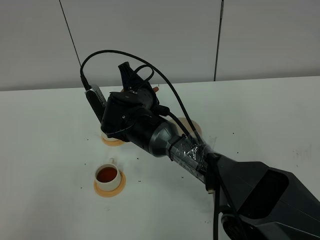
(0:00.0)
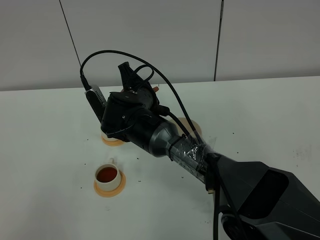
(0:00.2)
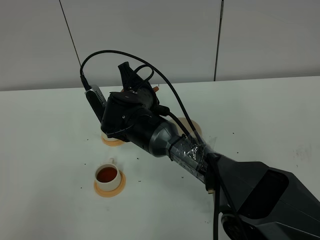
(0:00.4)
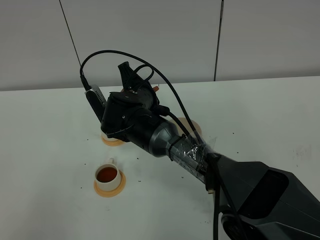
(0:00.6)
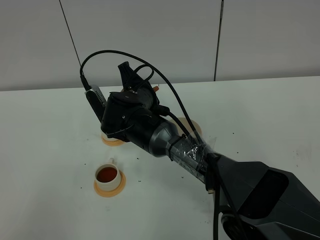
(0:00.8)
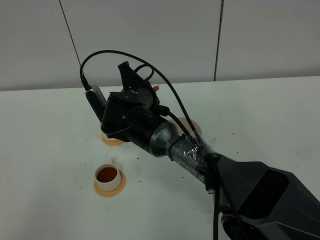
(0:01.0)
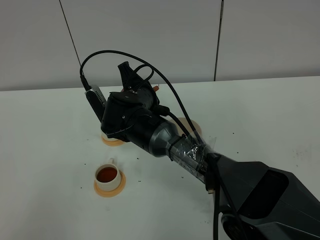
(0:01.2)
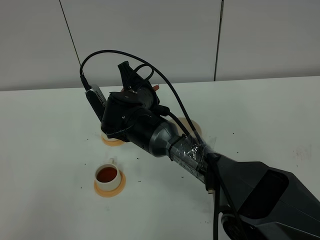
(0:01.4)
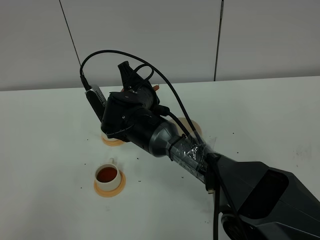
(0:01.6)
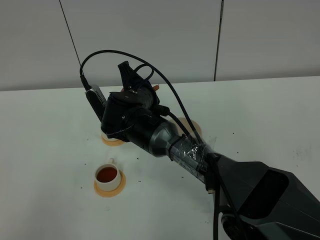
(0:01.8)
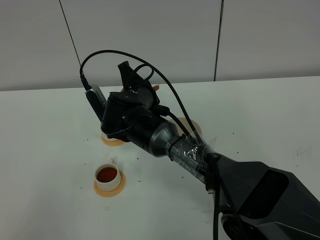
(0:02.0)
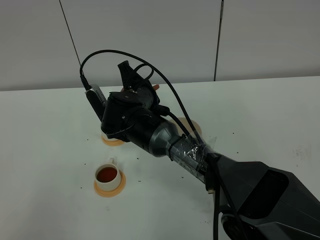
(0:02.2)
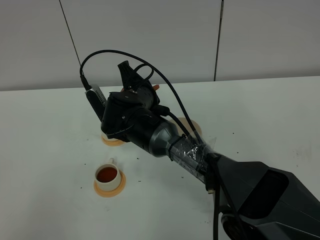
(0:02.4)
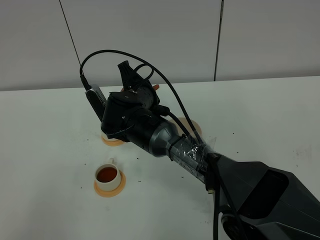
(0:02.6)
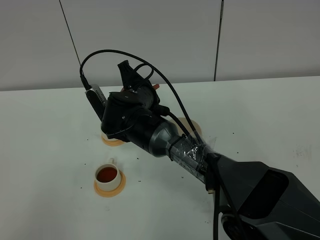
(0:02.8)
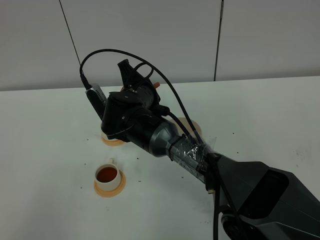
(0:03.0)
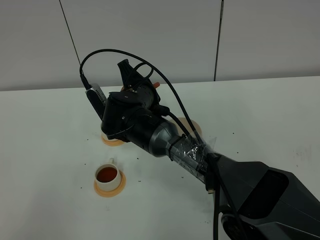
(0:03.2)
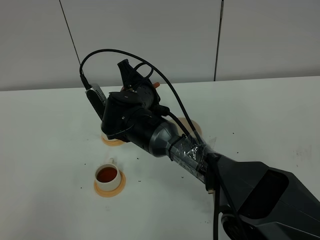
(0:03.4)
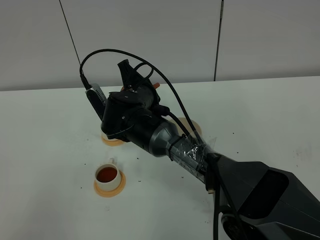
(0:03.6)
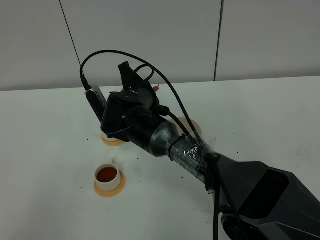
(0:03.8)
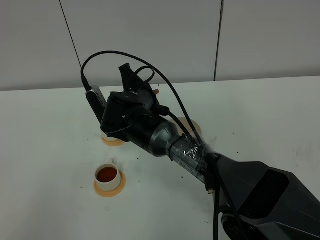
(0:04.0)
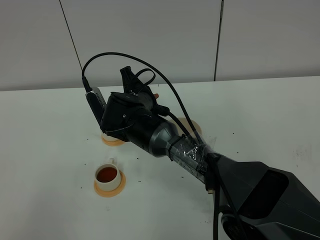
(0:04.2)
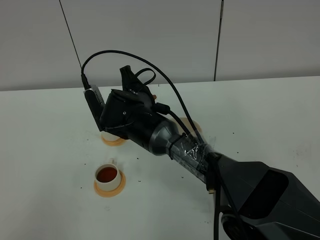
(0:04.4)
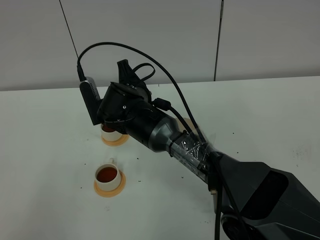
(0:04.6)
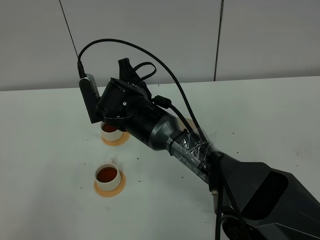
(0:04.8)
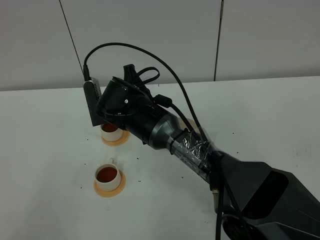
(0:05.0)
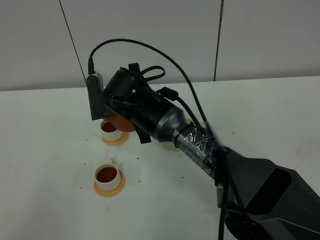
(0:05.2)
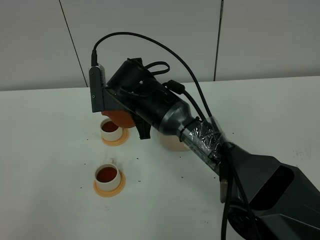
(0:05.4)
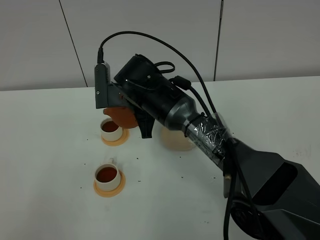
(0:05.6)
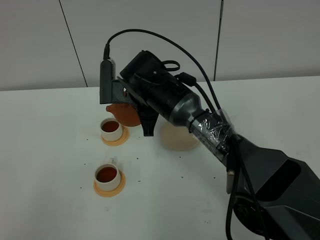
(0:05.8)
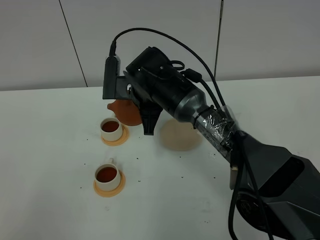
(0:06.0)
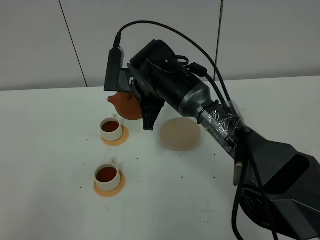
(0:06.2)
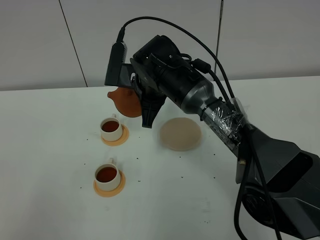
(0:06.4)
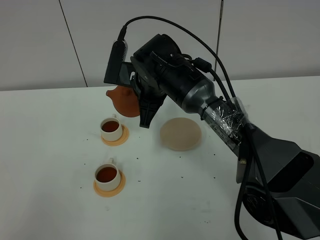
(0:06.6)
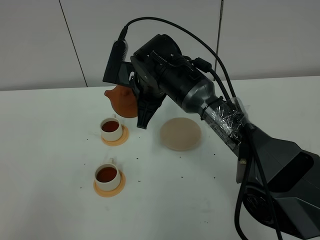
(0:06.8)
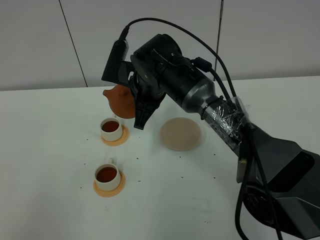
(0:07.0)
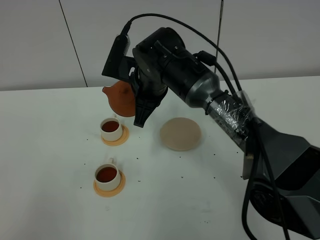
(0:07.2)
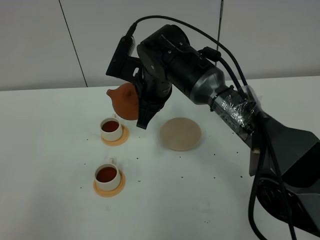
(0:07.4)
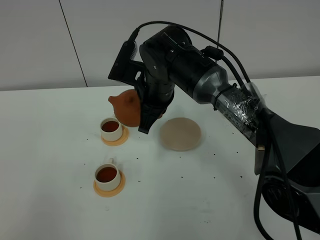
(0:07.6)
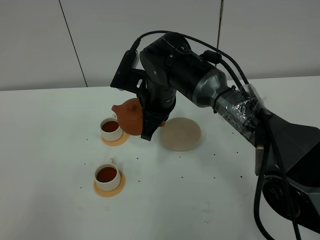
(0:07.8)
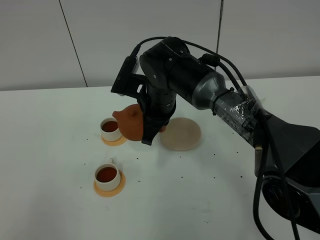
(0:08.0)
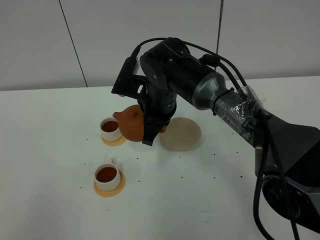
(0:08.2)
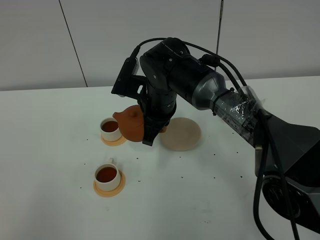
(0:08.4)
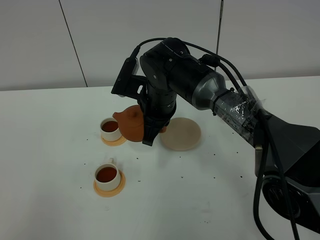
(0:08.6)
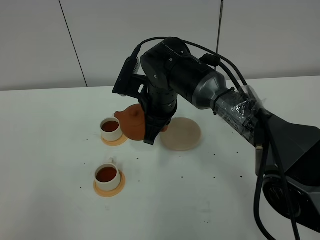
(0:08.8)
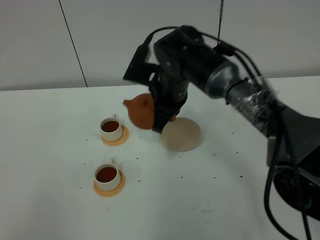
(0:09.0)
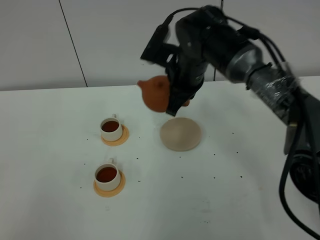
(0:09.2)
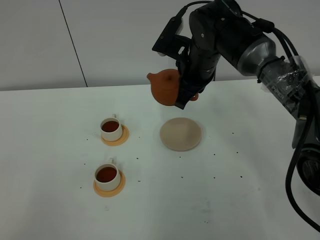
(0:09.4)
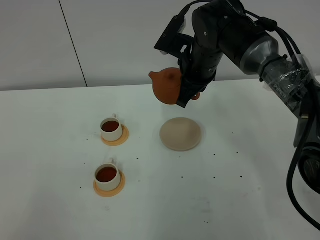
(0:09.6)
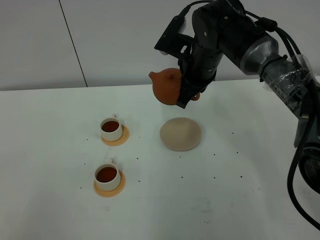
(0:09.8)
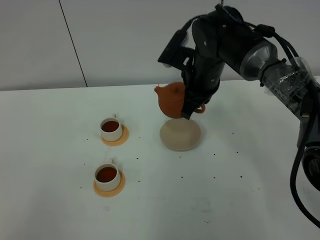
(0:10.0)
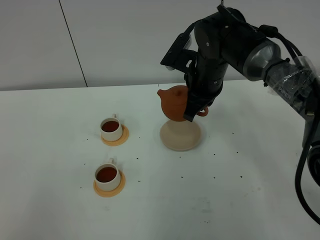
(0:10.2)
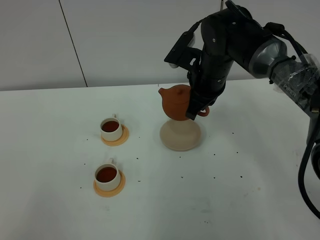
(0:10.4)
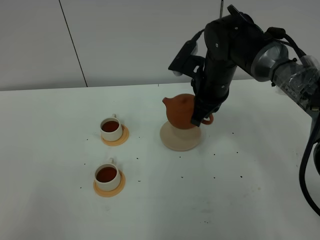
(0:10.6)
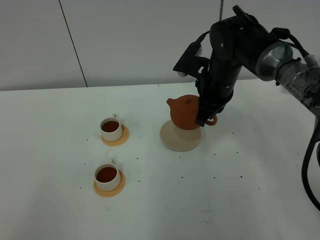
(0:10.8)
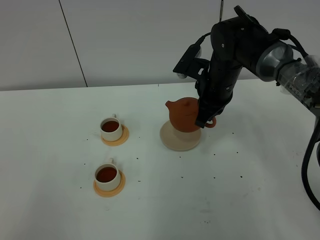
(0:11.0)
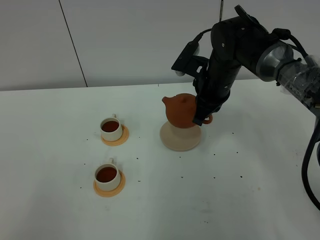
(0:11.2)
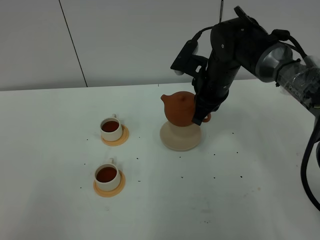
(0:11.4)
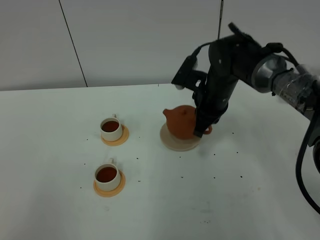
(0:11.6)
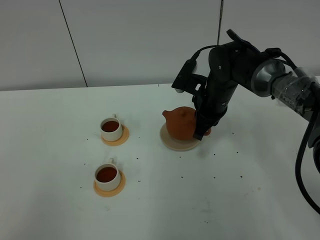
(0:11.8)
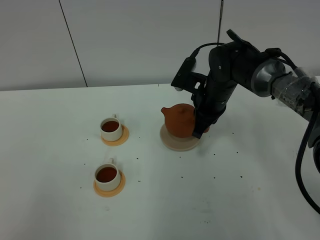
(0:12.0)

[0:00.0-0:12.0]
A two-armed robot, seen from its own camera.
Task of the whole recording: grasp the brown teapot and pour the tea into the two white teacups one by one, put the brown teapot back in its original place.
Step, 0:00.0 to 0:07.6: Pour tea into the teacup with the right gripper.
0:00.0 to 0:03.0: Neither gripper changes place.
0:03.0 to 0:04.4: There are only small adjustments of the grippers.
0:04.4 to 0:06.0: The right gripper changes place by approximately 5 cm.
0:07.6 to 0:09.0: The grippers stay close to where they were, moving slightly.
0:09.0 to 0:10.4: The right gripper shifts approximately 5 cm to the right.
0:10.4 to 0:12.0: The right gripper heads downward, covering approximately 5 cm.

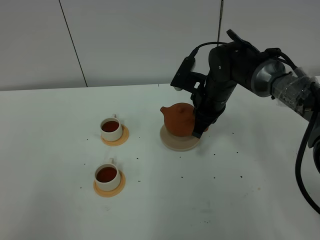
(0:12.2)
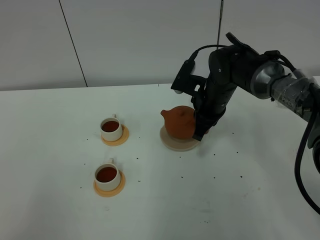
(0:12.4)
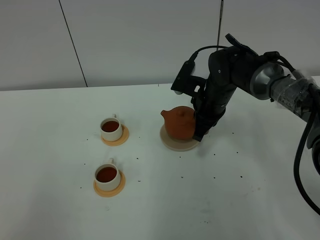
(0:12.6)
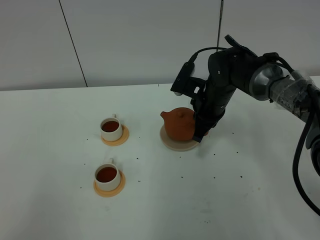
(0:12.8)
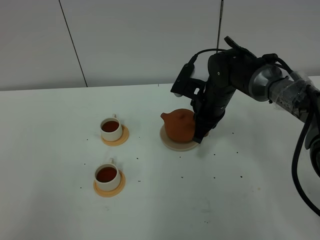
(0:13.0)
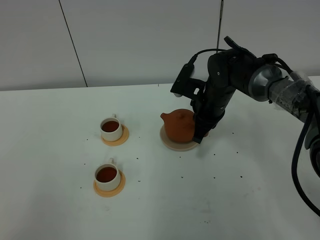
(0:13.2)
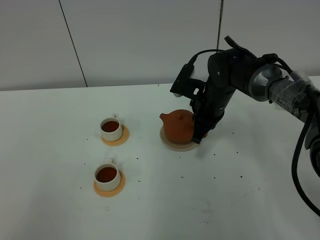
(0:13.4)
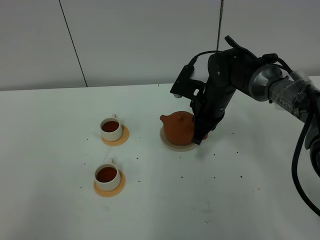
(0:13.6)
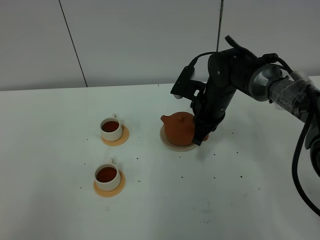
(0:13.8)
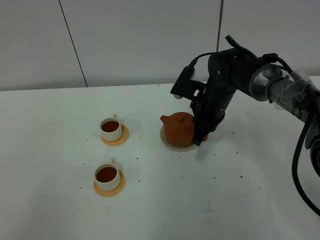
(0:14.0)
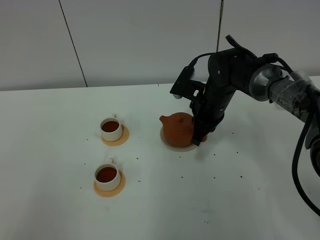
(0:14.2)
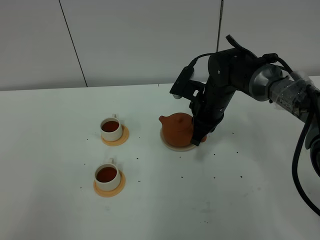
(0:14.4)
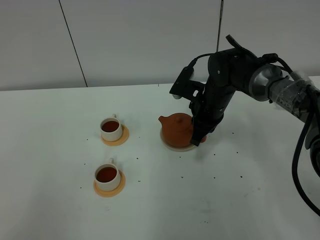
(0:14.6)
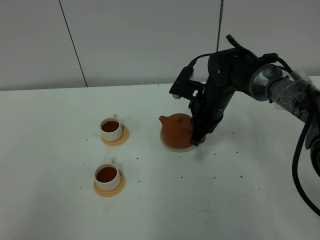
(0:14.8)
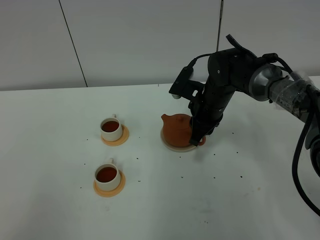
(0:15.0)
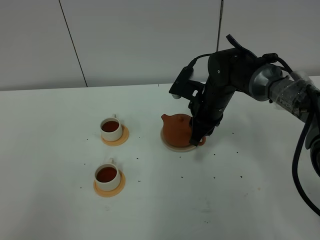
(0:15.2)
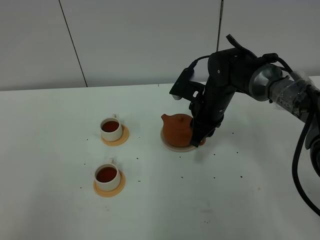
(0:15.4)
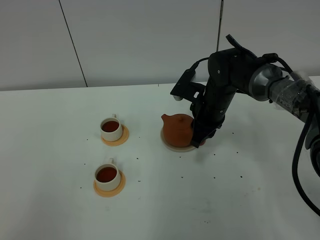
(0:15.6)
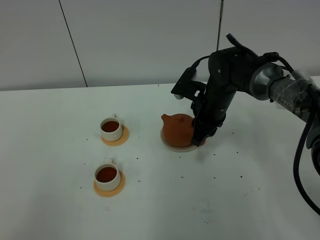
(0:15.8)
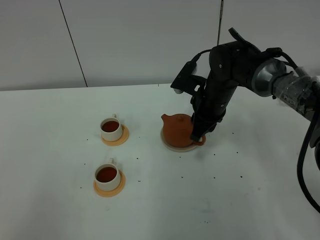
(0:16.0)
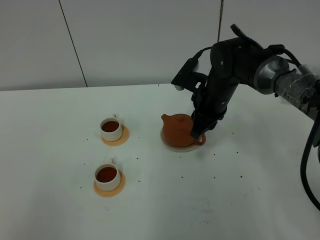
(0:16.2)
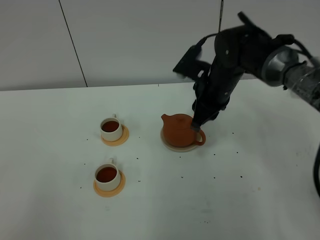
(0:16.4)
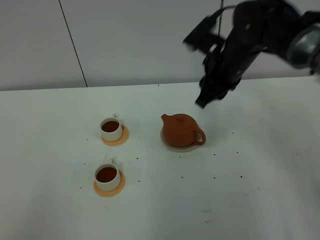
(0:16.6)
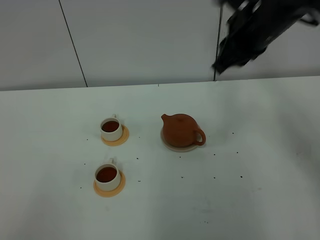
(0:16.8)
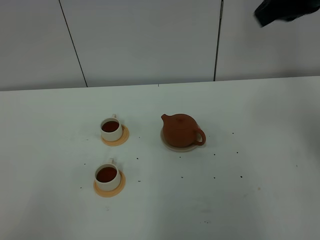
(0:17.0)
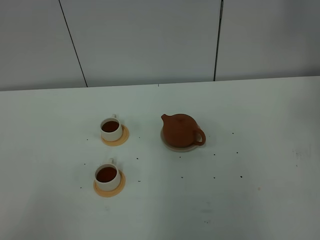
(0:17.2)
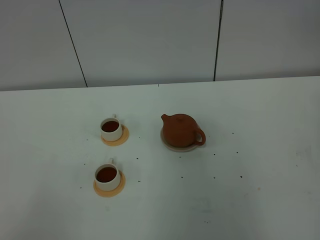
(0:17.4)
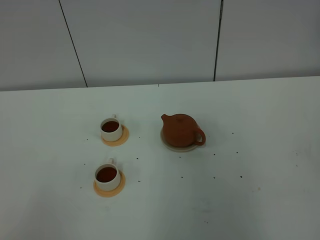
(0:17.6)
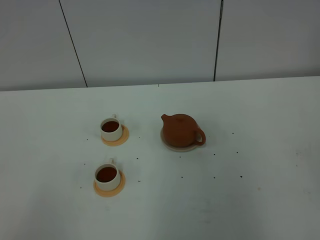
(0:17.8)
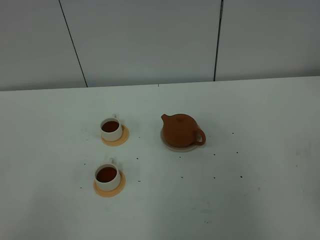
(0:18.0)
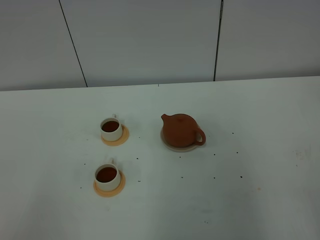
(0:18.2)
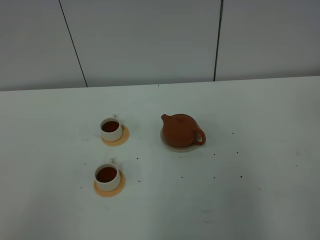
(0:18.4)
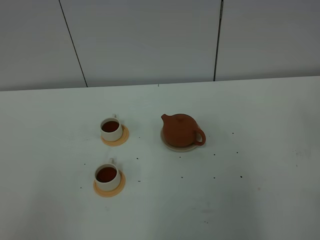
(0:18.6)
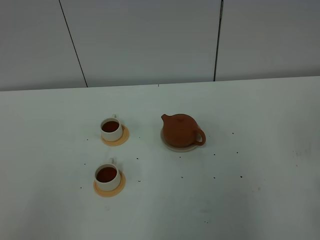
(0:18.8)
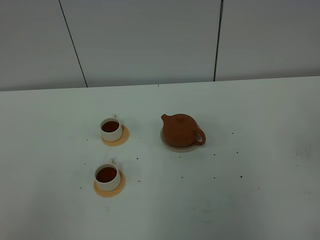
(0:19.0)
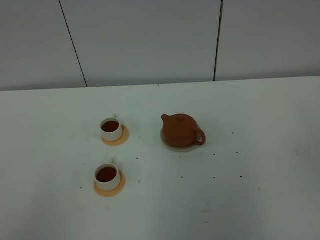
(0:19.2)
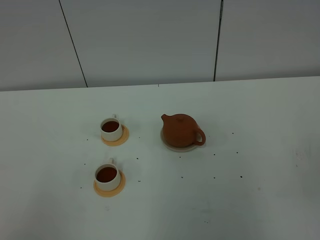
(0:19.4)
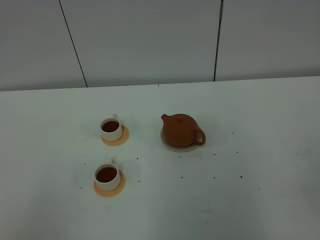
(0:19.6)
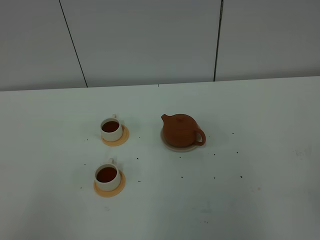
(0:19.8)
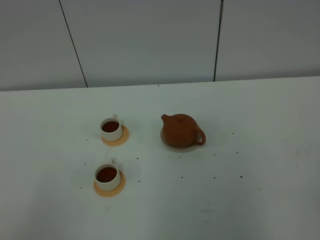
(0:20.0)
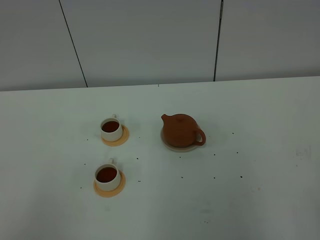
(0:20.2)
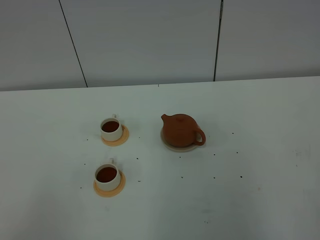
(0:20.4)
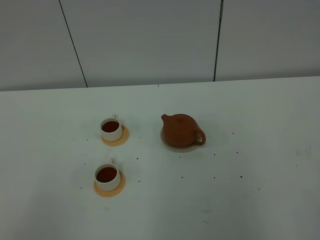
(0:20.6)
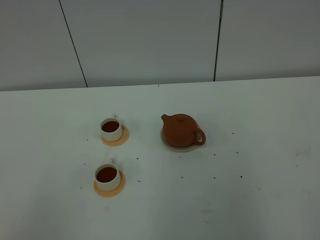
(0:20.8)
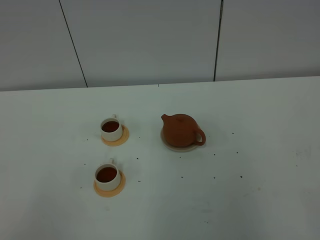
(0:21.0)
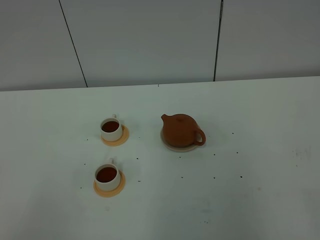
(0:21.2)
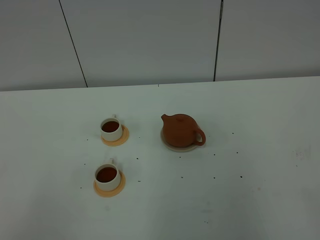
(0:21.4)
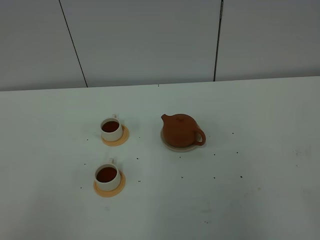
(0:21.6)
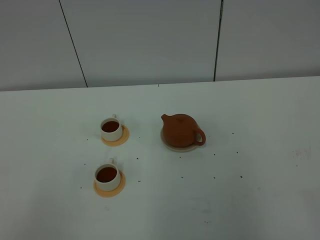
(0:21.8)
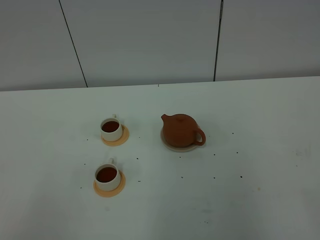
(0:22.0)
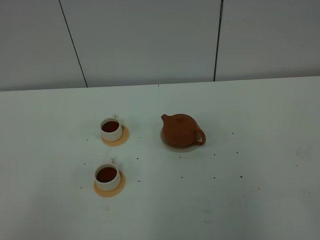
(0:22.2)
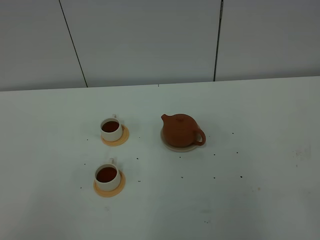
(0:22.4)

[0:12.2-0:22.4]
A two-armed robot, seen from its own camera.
Task of the whole recording: grasp the brown teapot and pour the tea into the two white teacups one by one, put the brown teapot back in its original place.
0:12.2 to 0:13.6: The grippers move only a little.
0:13.6 to 0:15.2: The right gripper opens.
0:15.2 to 0:16.6: The right gripper is displaced upward by some 10 cm.
0:16.6 to 0:18.0: The right gripper travels to the right, backward and upward by about 35 cm, and closes.
